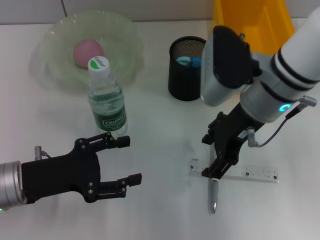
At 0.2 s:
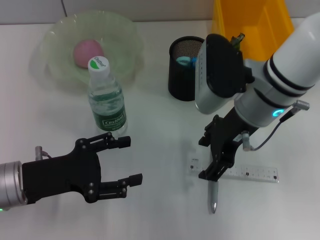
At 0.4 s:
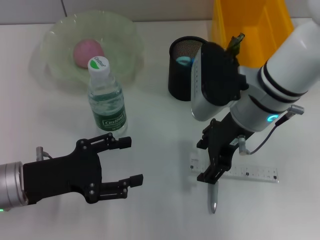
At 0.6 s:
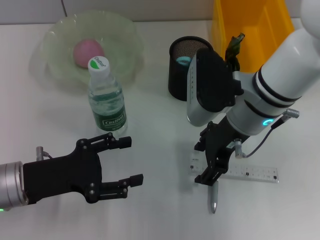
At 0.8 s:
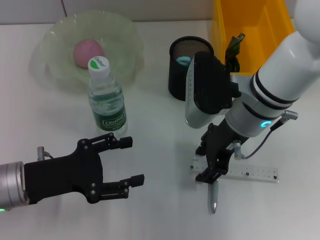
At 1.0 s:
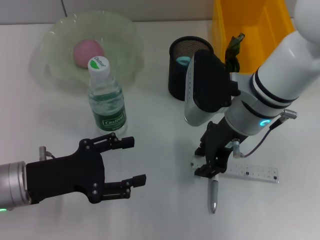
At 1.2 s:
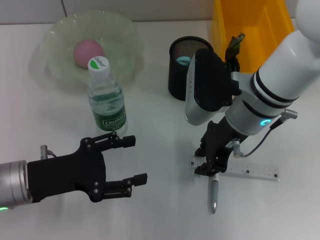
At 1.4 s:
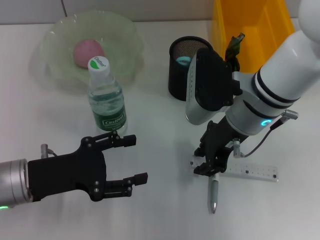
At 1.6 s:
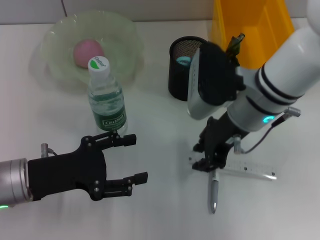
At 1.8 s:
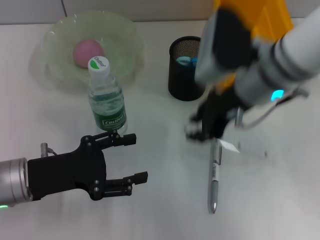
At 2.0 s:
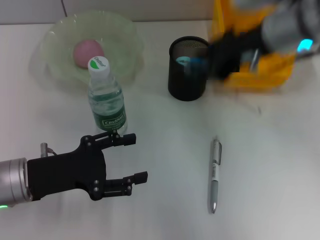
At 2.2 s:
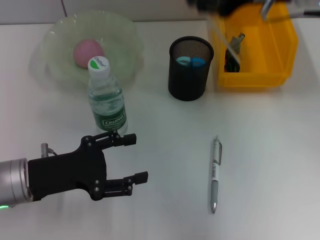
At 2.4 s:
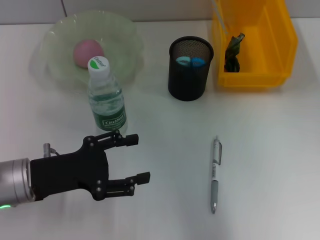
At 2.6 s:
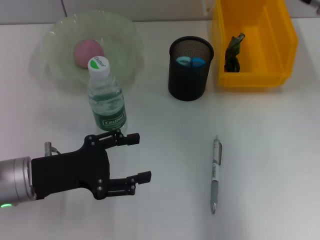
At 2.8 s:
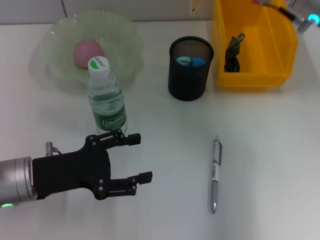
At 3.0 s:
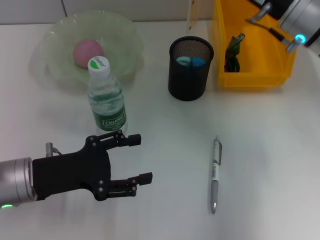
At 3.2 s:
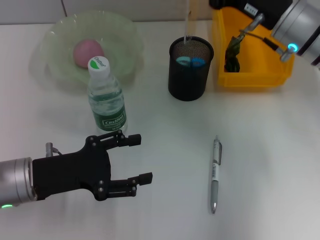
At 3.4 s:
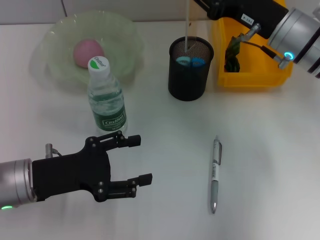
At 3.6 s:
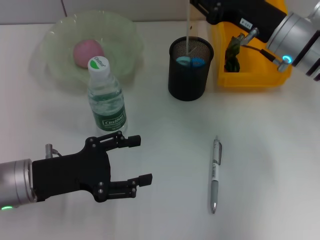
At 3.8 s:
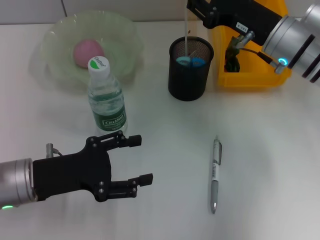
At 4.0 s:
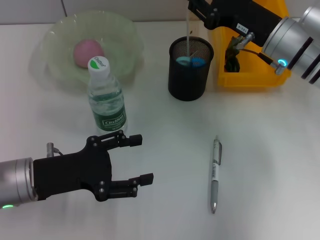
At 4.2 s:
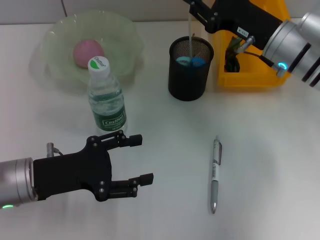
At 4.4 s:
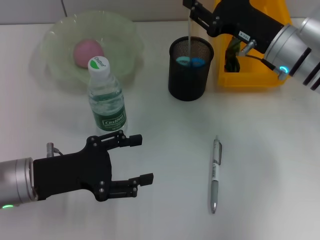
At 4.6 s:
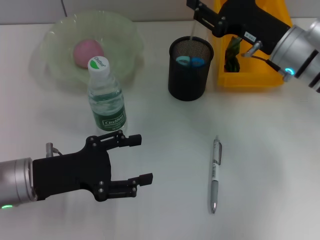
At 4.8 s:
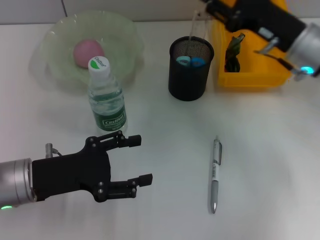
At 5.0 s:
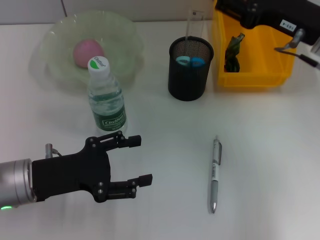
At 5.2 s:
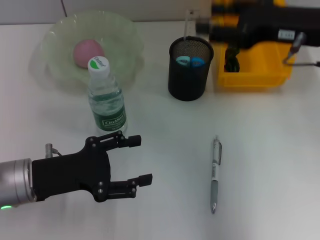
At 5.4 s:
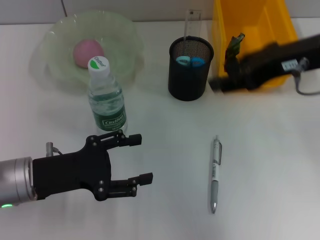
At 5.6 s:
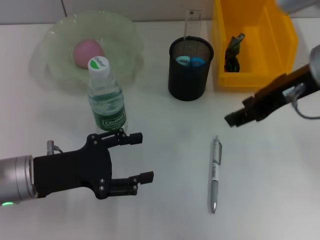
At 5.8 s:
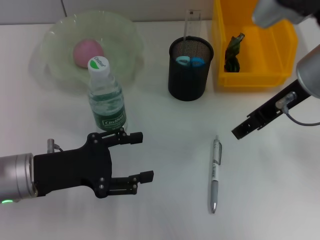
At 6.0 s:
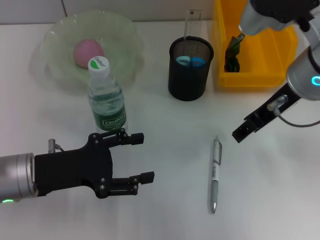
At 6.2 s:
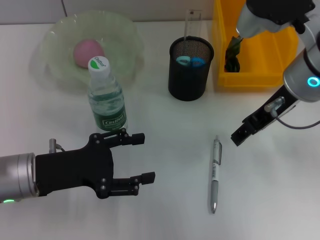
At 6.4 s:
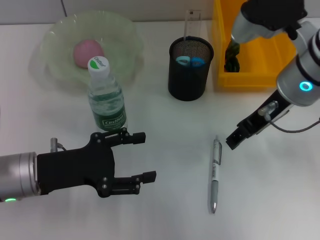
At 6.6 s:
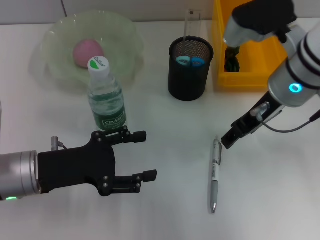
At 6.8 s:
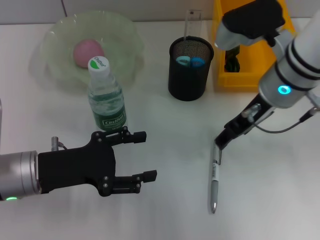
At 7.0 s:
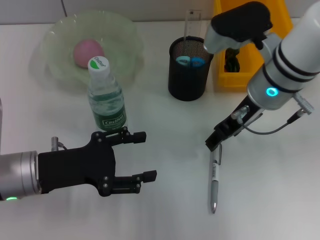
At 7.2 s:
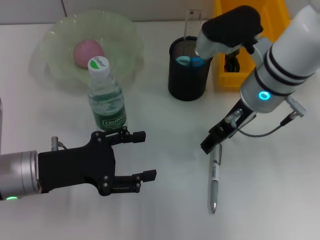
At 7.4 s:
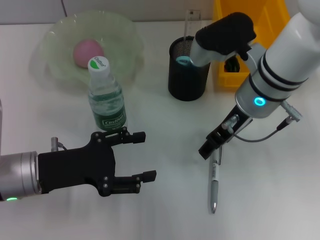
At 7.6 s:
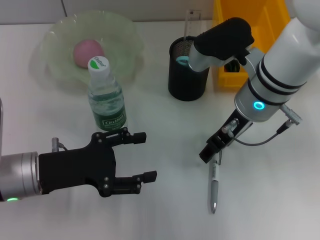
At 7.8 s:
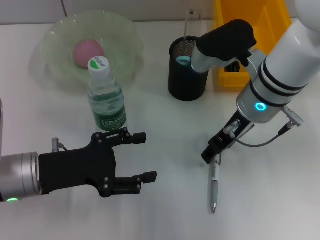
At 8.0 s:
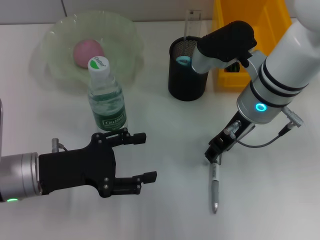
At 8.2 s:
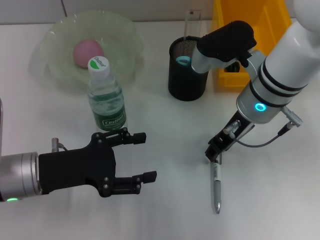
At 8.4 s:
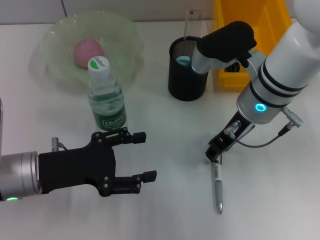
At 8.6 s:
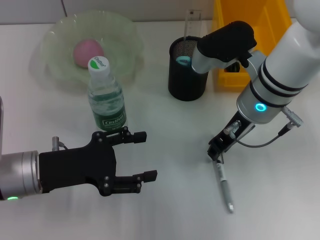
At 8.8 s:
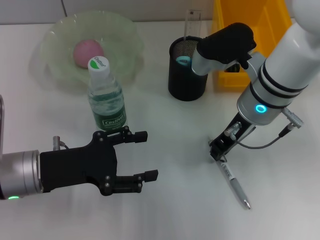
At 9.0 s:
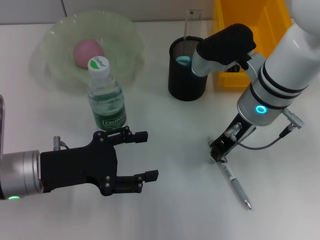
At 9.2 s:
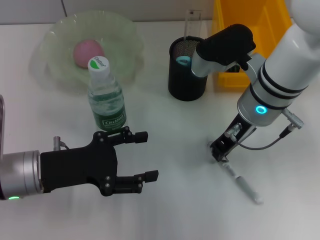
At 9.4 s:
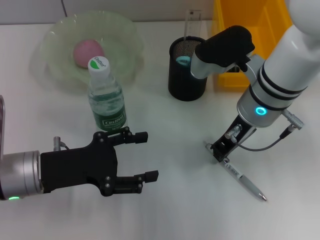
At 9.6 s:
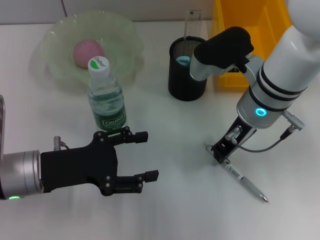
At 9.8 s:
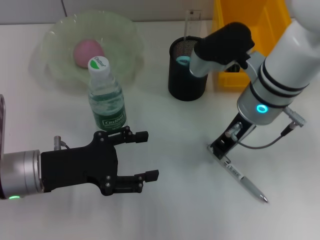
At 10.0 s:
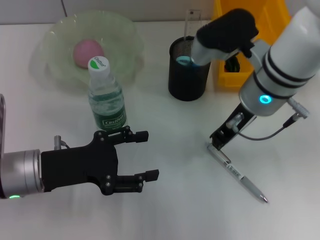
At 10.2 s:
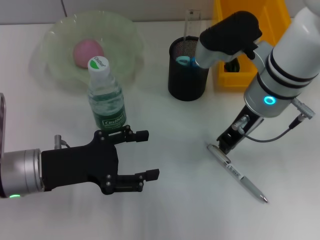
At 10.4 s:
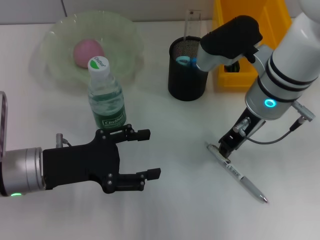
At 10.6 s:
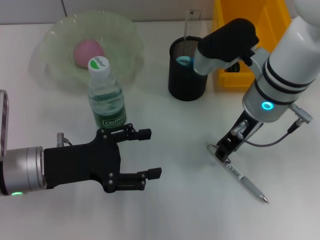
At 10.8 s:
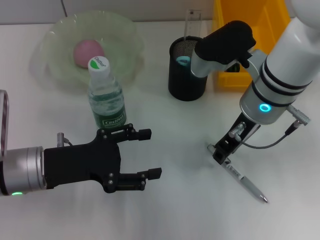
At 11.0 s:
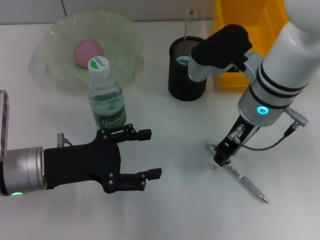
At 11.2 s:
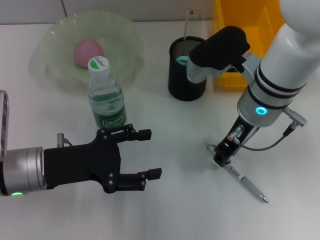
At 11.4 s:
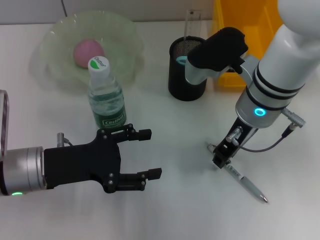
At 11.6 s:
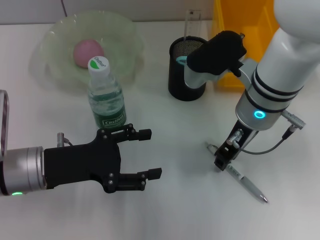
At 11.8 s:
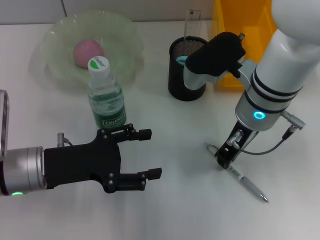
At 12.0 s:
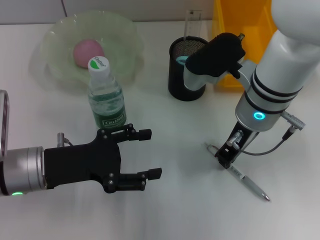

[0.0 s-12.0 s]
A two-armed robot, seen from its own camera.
Step, 1.6 to 4.8 s: Place the ruler into the pen holder with the right hand.
0.0 to 1.6 s: The right gripper closes.
1.6 to 3.0 s: The right gripper heads to the right and forward, covering some 10 cm, and travels upward and back again, about 10 cm each way.
3.0 to 4.4 s: The grippers make only small movements.
4.4 to 6.0 s: The right gripper shifts roughly 10 cm upward.
6.0 to 7.6 s: The right gripper moves downward, some 5 cm.
7.6 to 9.0 s: The right gripper closes.
9.0 to 12.0 s: The grippers move only a little.

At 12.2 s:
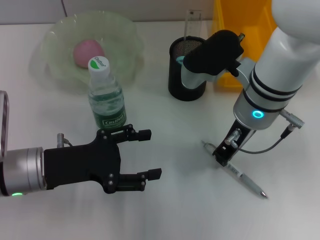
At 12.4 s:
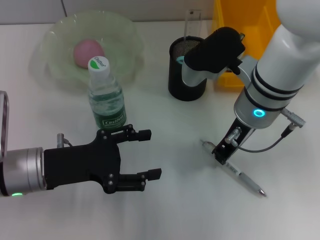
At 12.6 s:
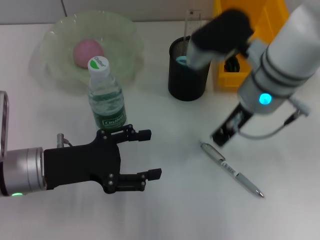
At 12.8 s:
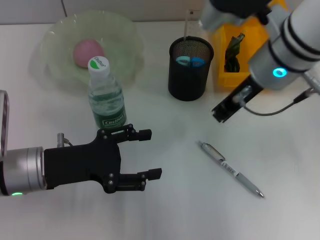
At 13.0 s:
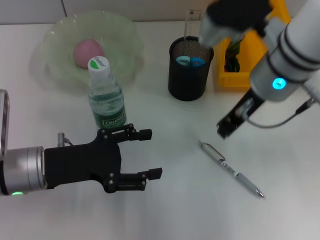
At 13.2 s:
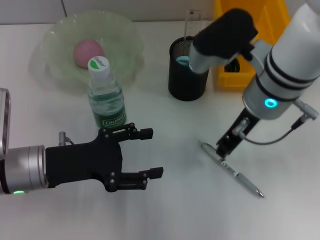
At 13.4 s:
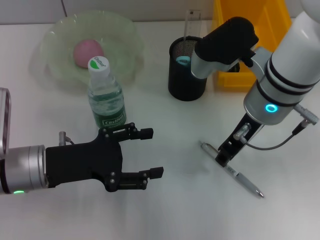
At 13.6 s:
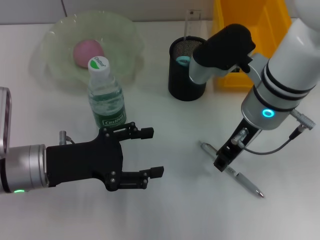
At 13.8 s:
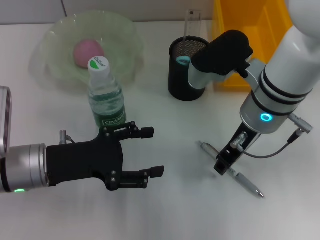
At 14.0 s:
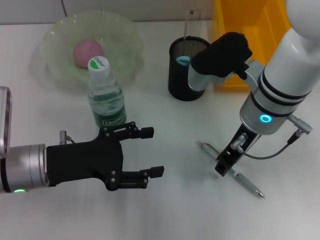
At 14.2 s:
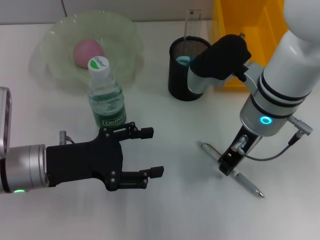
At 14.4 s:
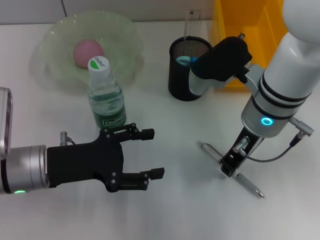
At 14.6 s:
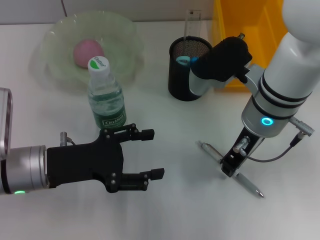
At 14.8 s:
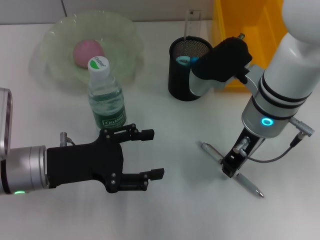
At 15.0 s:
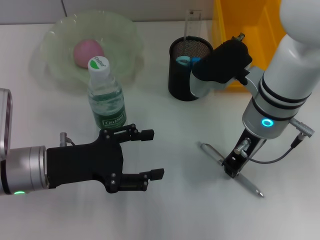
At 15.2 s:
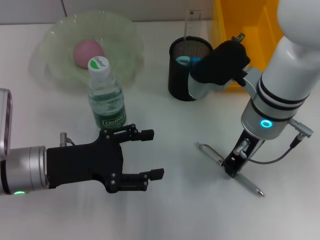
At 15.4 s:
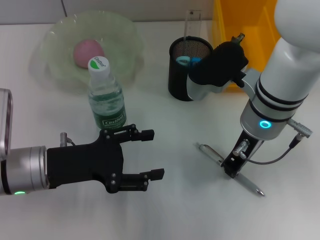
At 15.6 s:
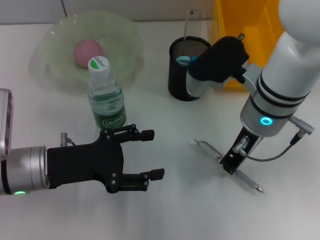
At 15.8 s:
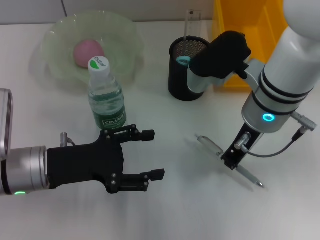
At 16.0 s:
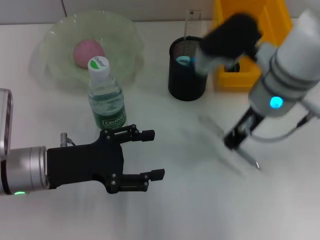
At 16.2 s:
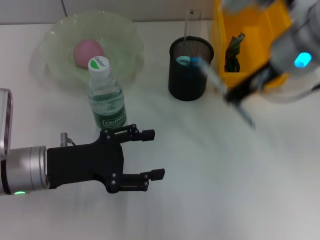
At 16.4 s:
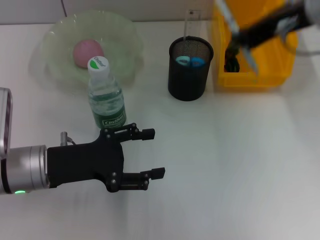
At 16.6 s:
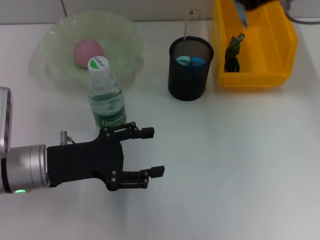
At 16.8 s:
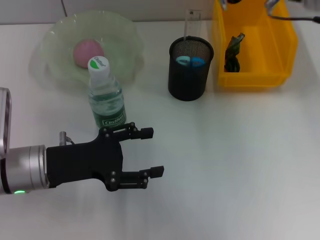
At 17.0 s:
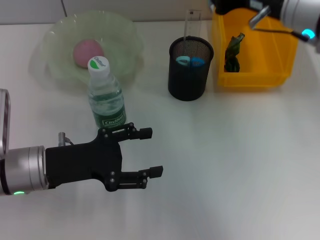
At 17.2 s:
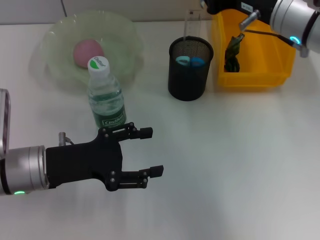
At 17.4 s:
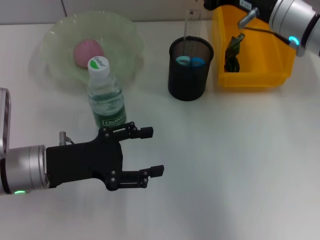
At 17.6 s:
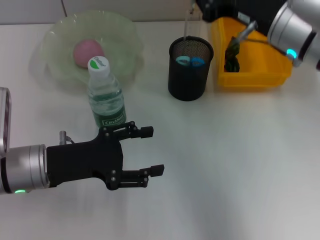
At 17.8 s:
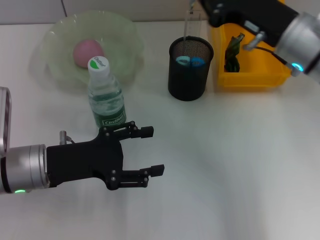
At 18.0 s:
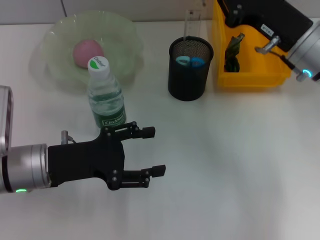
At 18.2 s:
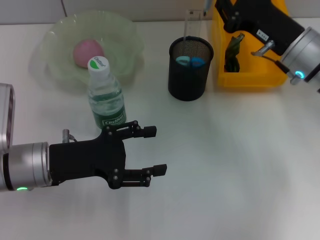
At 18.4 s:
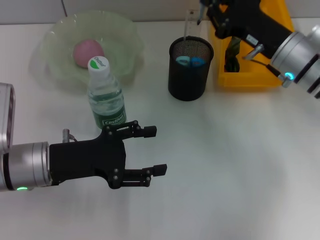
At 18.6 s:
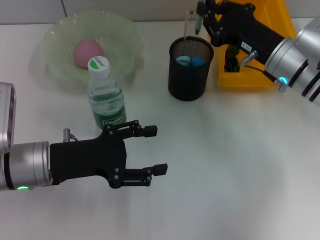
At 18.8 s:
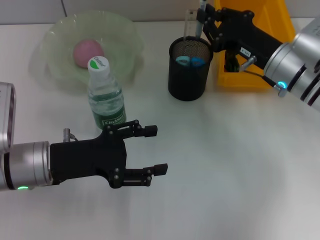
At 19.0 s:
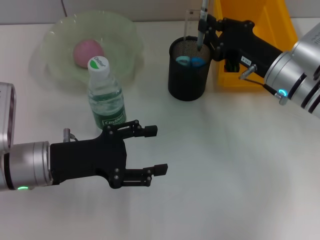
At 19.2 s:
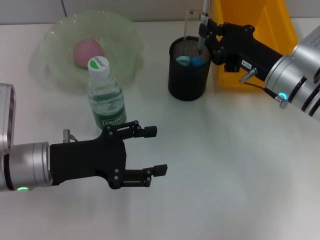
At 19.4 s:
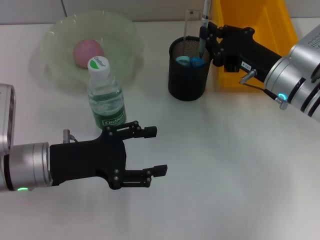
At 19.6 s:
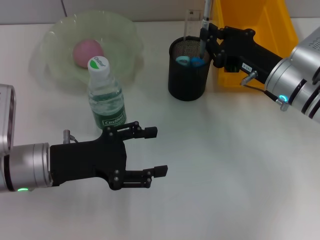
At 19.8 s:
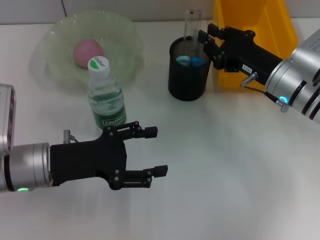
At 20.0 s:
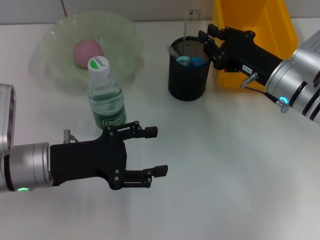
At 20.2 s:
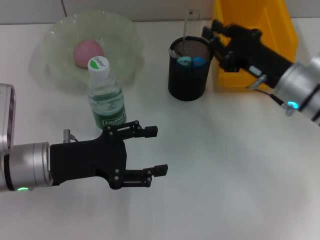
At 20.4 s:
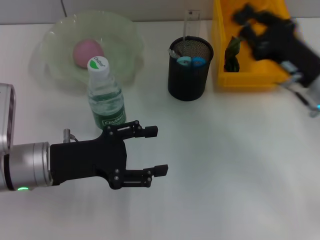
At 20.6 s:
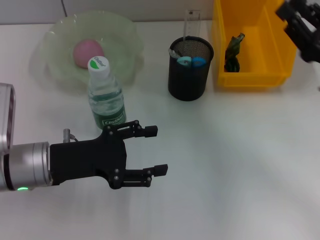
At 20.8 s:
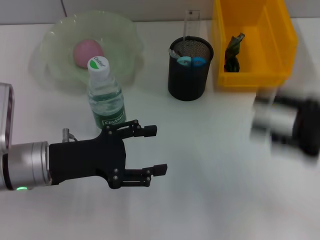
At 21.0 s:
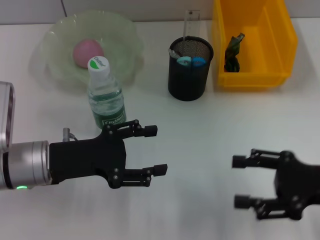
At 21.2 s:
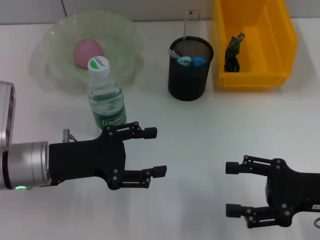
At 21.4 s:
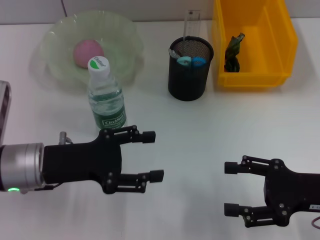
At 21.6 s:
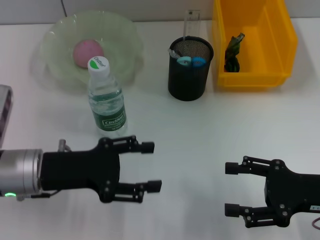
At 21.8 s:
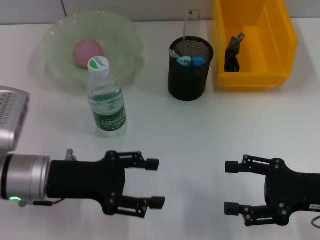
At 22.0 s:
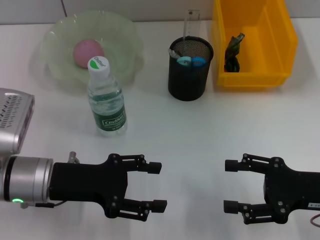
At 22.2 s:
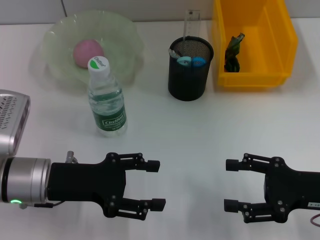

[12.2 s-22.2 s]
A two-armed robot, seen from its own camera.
Step, 12.2 to 15.2 s: Grab the gray spring-action pen with the right hand.
Step, 15.4 to 20.0 s: Place the gray spring-action pen into the pen holder with the right hand.
13.6 to 15.0 s: The grippers move only a little.
15.0 to 16.4 s: The right gripper travels upward by some 15 cm.
16.4 to 18.0 s: The right gripper heads downward, covering approximately 15 cm.
18.0 to 19.4 s: The right gripper goes roughly 5 cm downward.
19.4 to 20.8 s: The right gripper goes some 15 cm backward and to the right.
20.8 to 22.2 s: The right gripper moves some 5 cm, and opens.
